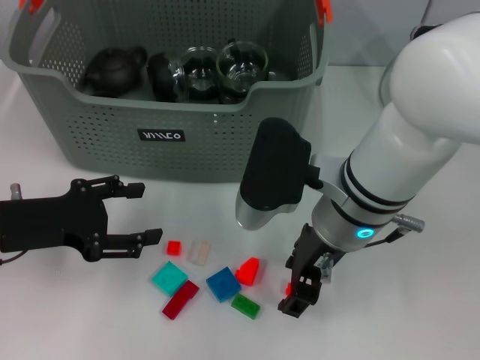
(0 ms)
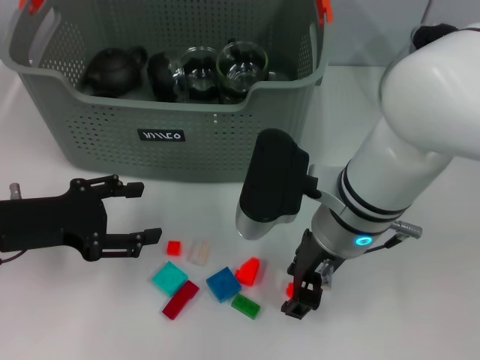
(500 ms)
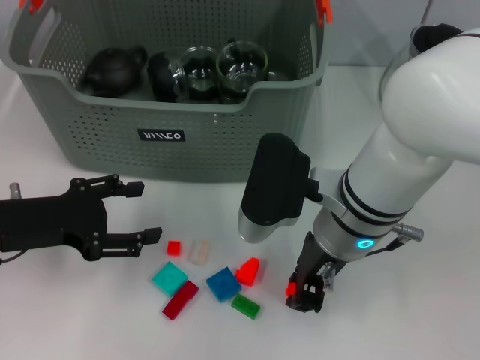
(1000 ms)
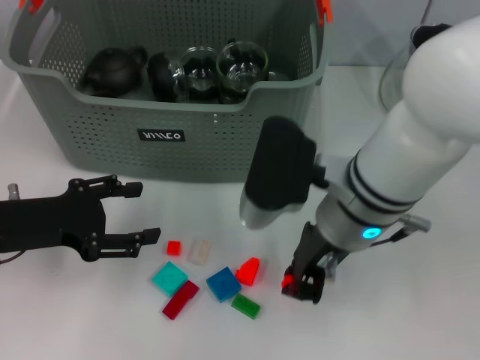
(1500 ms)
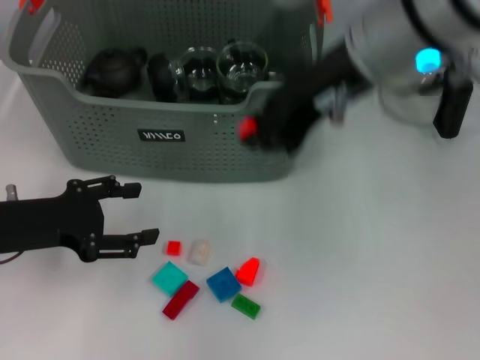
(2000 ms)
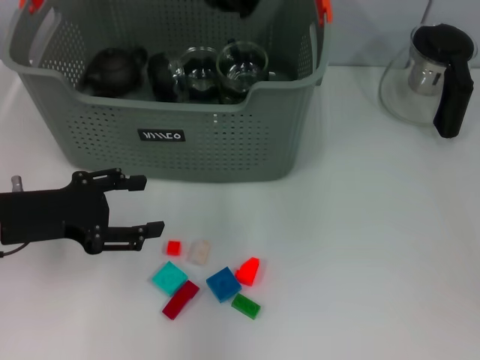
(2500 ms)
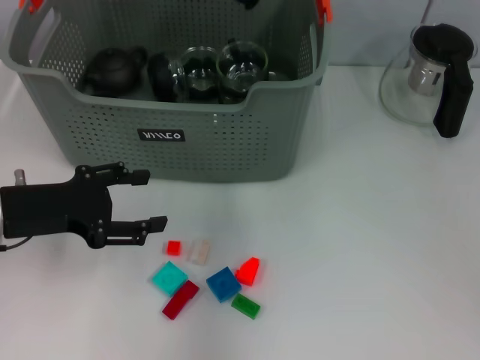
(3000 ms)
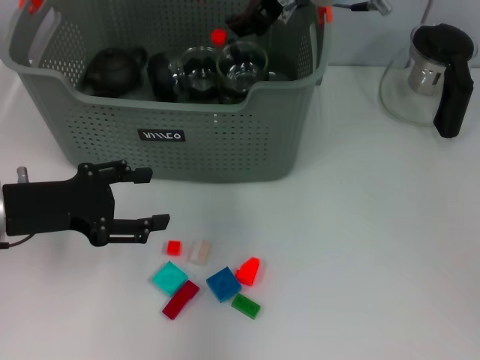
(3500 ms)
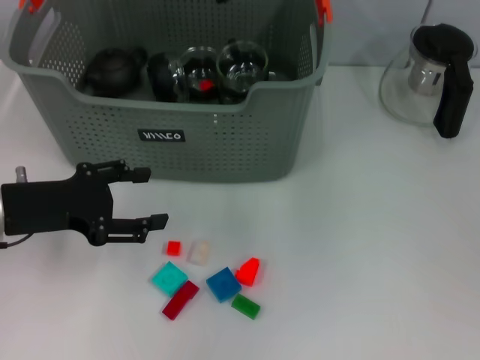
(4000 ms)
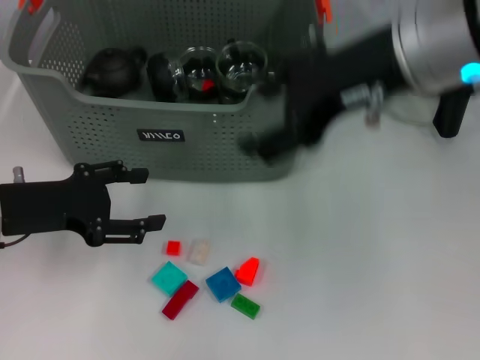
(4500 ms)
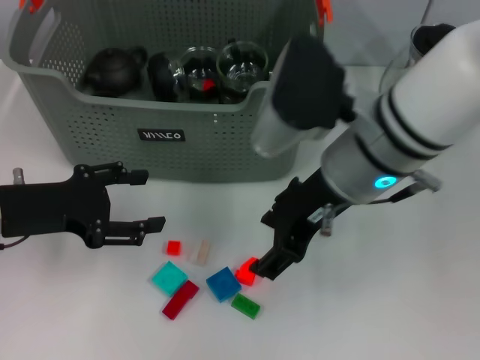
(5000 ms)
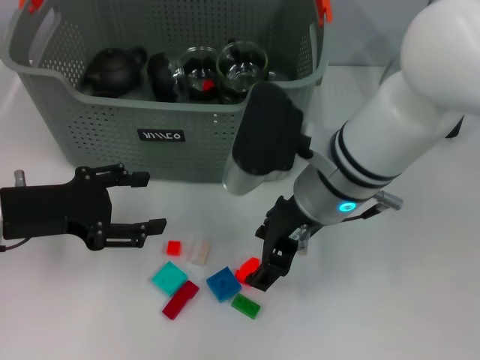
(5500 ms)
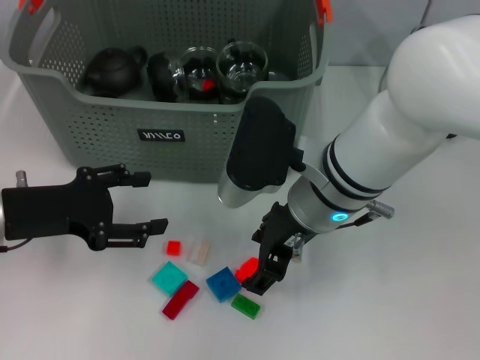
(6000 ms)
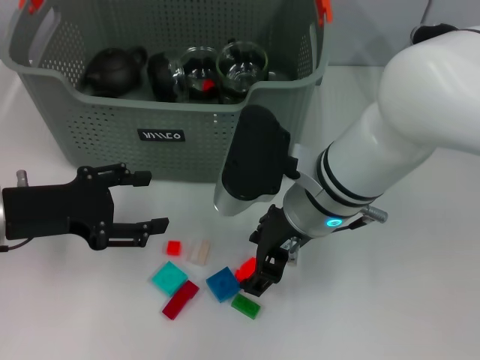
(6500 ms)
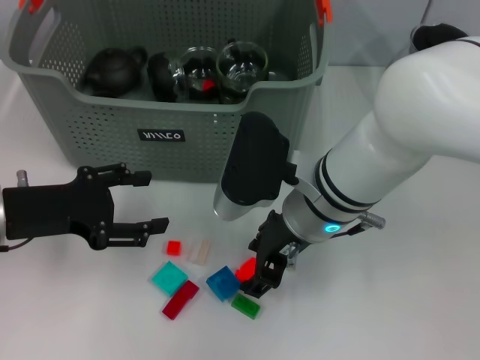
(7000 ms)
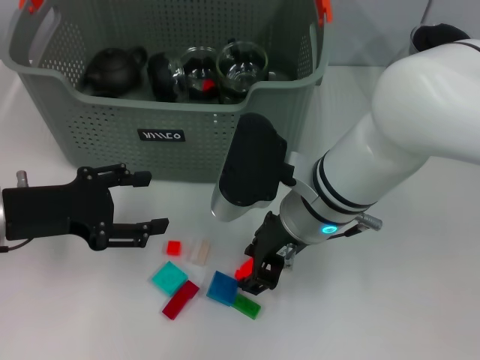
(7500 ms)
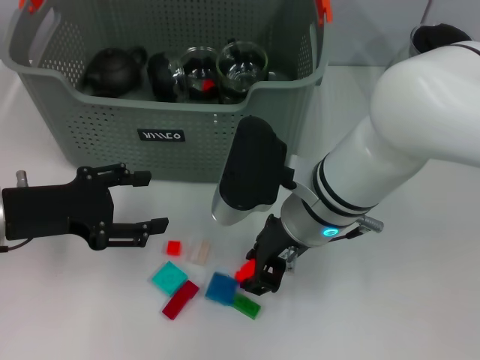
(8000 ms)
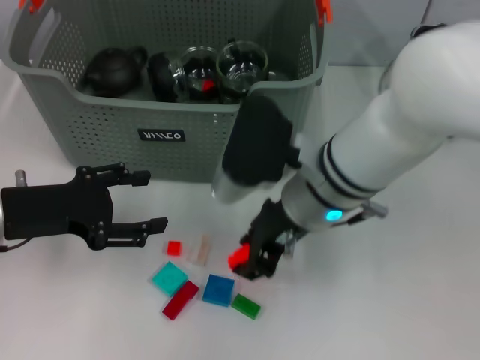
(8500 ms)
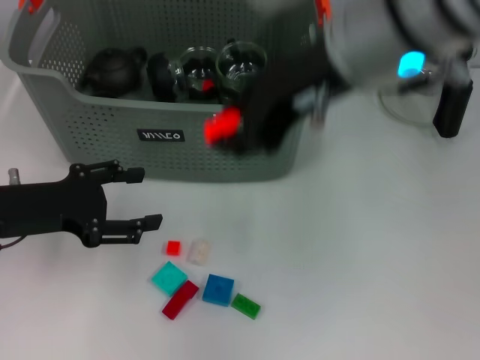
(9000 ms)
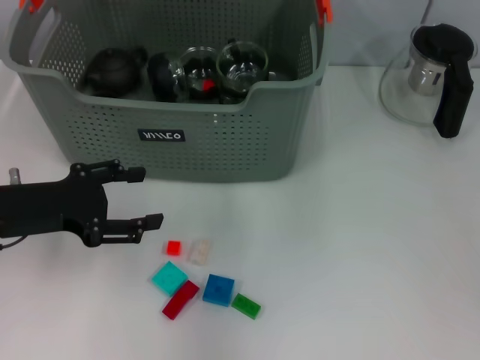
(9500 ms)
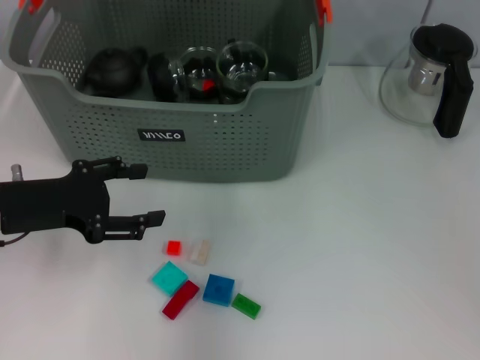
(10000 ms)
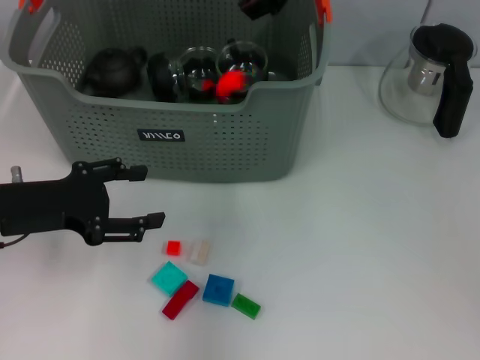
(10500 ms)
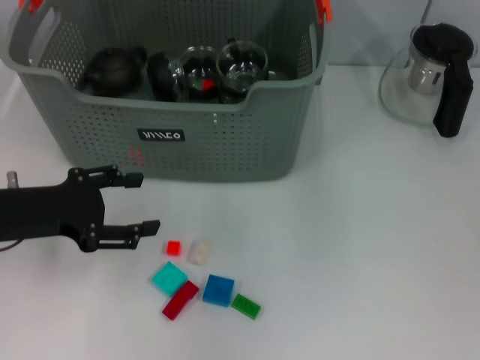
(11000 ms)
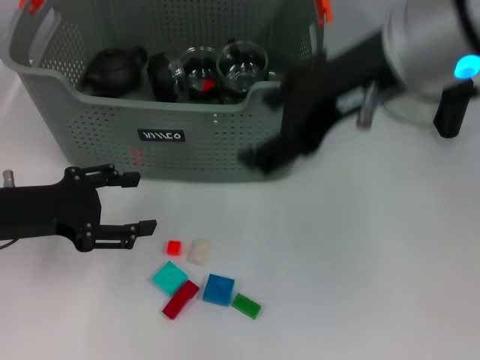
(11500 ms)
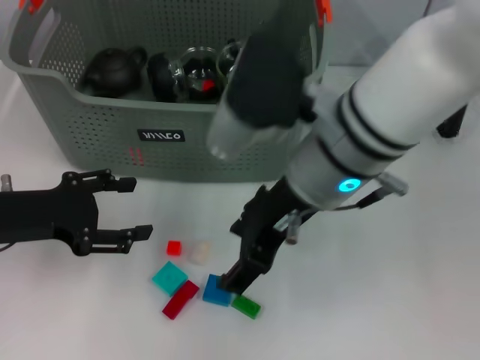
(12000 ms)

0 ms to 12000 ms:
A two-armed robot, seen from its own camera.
Task of the whole recording: pick up the teacup on the table and place it into the storage bin, pick up the block on the table and place it into the storage bin.
Step, 1500 ms to 3000 ms: Place the orange block in the storage box with right gripper.
Step, 4000 ms to 8000 ms: Grasp the orange block with right gripper.
Step, 8500 ms to 10500 ms: Place the orange block in the storage box with right gripper.
0 ms to 2000 ms: The right gripper travels upward by some 15 cm, and closes up.
2000 ms to 4000 ms: The right gripper moves forward, approximately 10 cm, and opens up.
4000 ms to 6000 ms: The right gripper goes approximately 20 cm downward and backward.
6000 ms to 8000 ms: The right gripper closes up.
8000 ms to 10000 ms: The right gripper travels upward and forward by roughly 20 cm.
10000 ms to 12000 ms: The right gripper moves backward and downward, about 15 cm, and opens.

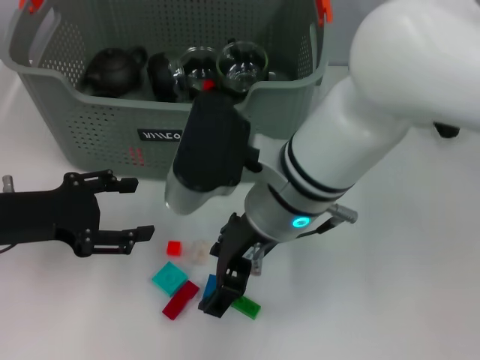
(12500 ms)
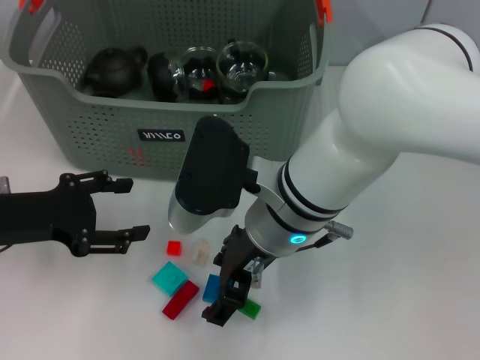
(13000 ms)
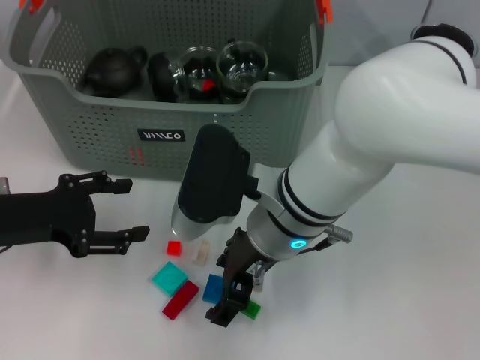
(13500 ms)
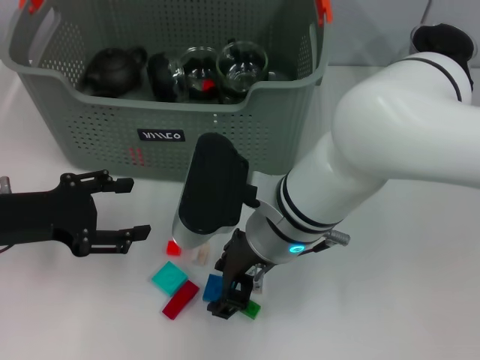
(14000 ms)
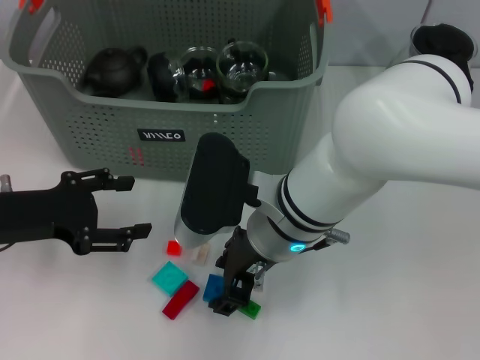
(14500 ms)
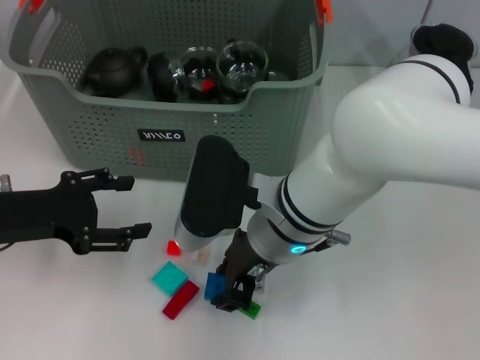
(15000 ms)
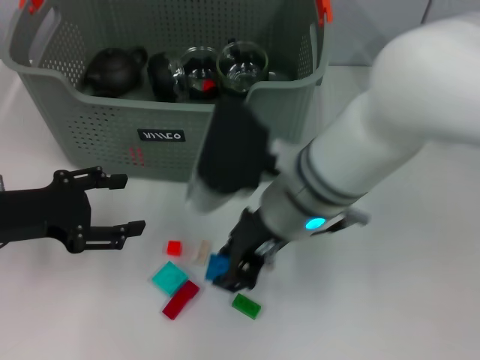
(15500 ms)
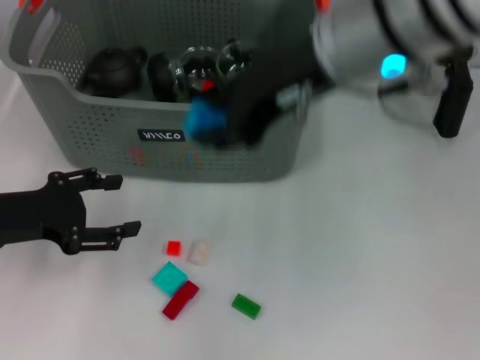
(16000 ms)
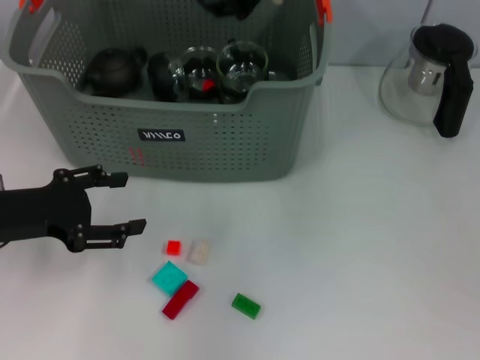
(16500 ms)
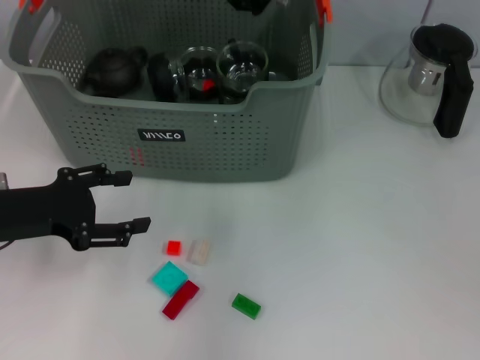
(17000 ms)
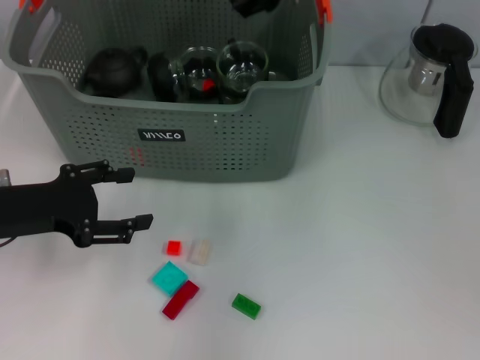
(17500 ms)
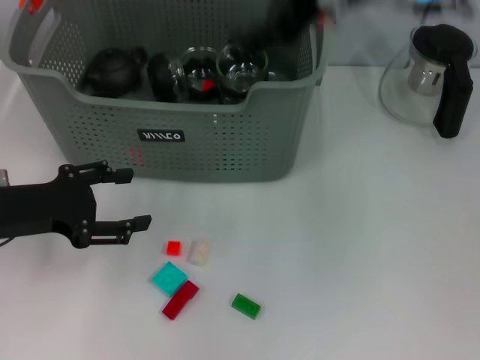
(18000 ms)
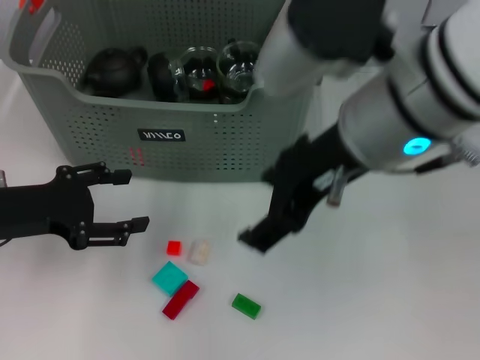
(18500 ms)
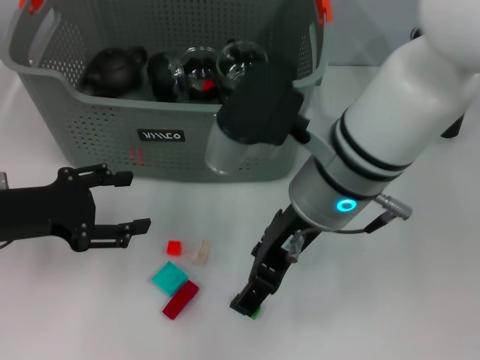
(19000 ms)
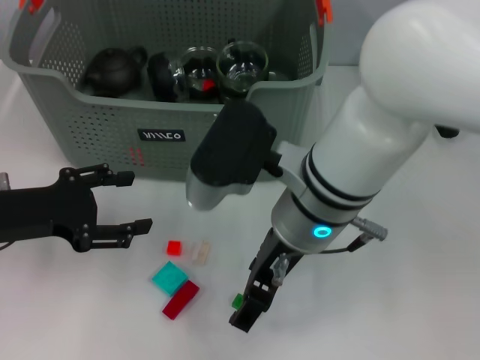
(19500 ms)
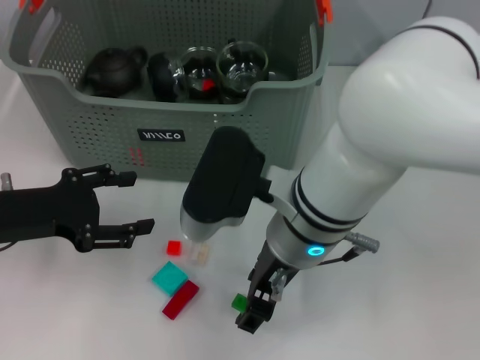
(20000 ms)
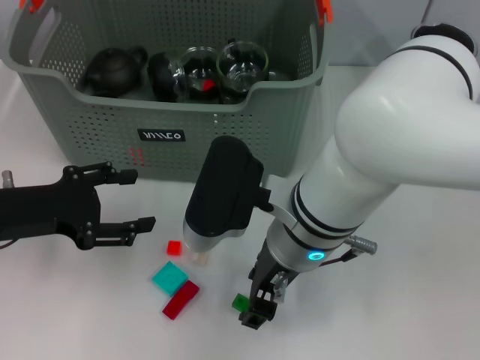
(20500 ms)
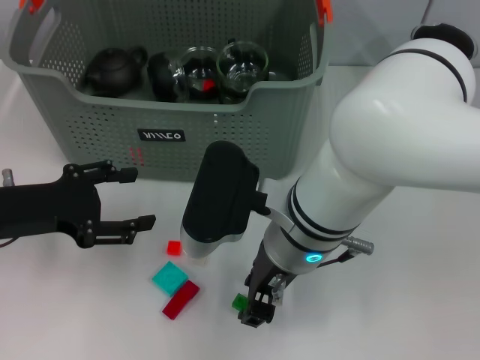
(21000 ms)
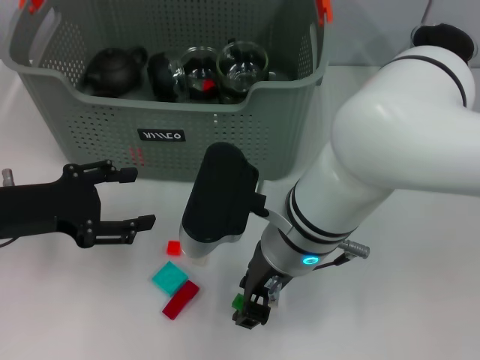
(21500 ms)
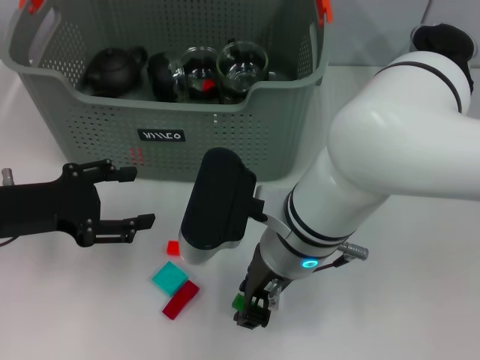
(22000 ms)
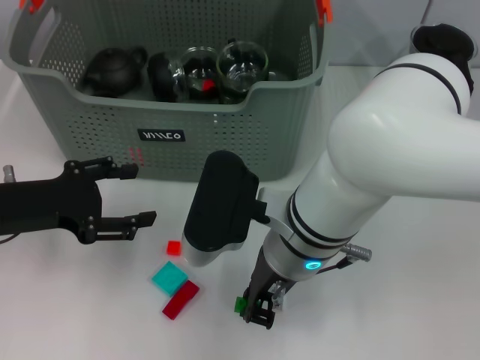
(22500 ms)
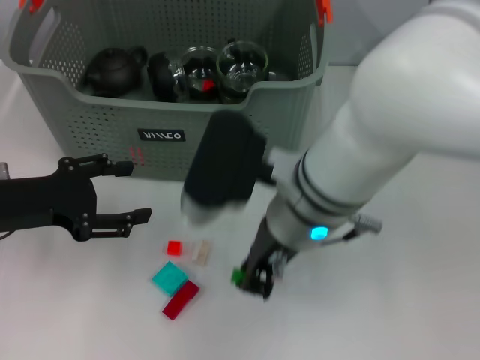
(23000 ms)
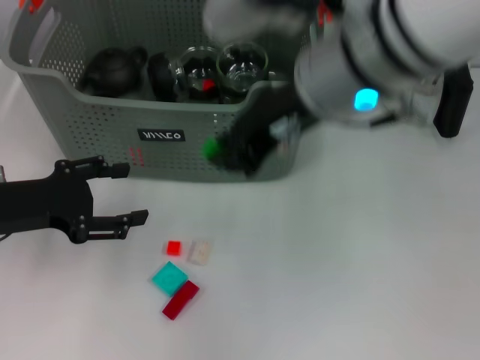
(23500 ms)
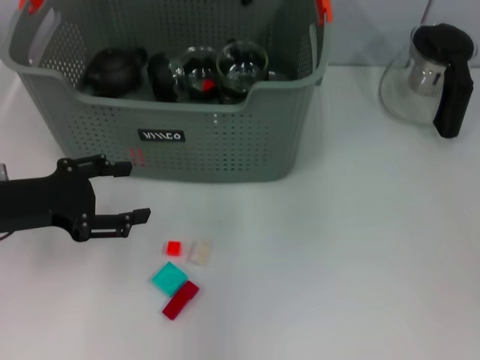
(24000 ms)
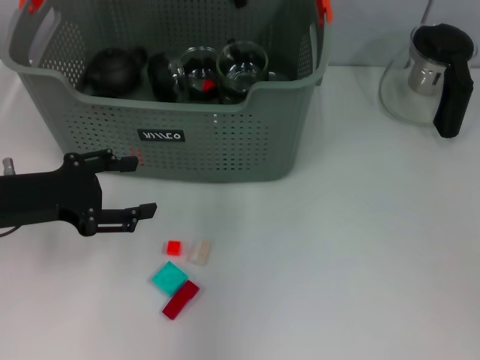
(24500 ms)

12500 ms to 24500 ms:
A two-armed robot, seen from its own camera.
Task of the whole recording: pick up the teacup on the table and place it into the storage bin, pick up the block on the table and place it into the storage bin.
Step, 12500 ms to 14500 ms: Grasp the dark blue block with right gripper.
Step, 15000 ms to 17000 ms: Place the dark blue block in the storage box with right gripper.
Step, 17500 ms to 22500 ms: Grasp the green block with right gripper.
14500 ms to 16500 ms: The right gripper heads upward and forward, covering some 20 cm.
16500 ms to 18500 ms: The right gripper moves backward, roughly 10 cm, and opens its fingers.
18500 ms to 20500 ms: The right gripper moves downward and to the left, roughly 15 cm.
20500 ms to 22500 ms: The right gripper closes its fingers.
22500 ms to 24500 ms: The right gripper travels upward and forward by approximately 20 cm.

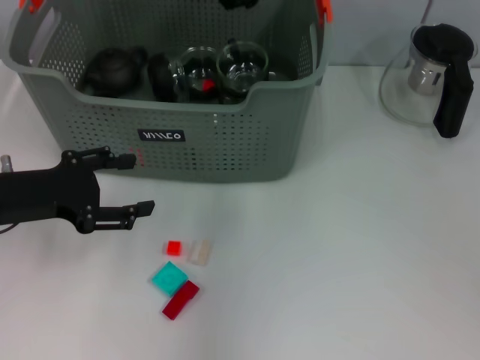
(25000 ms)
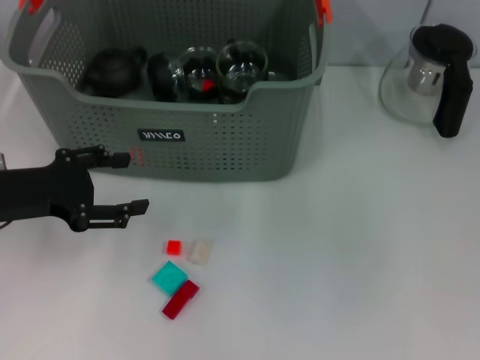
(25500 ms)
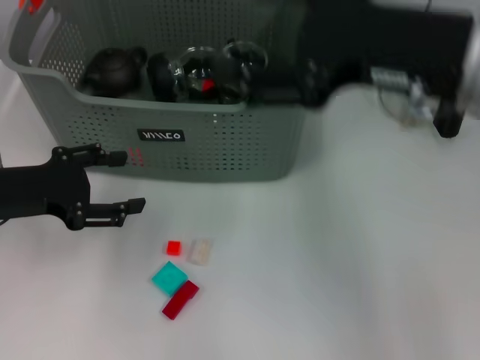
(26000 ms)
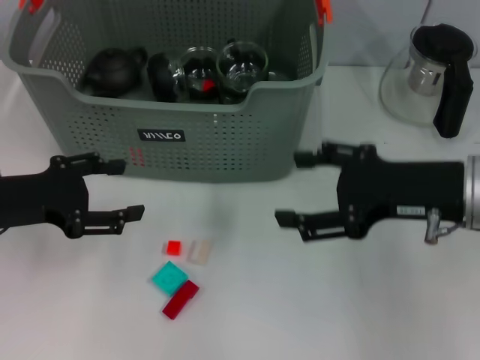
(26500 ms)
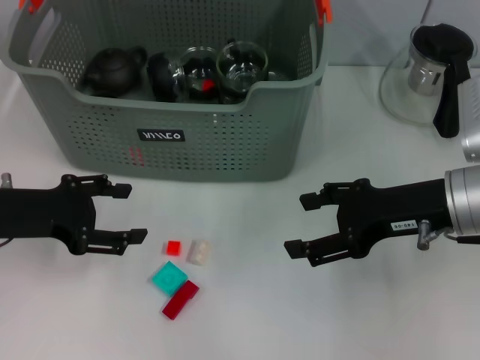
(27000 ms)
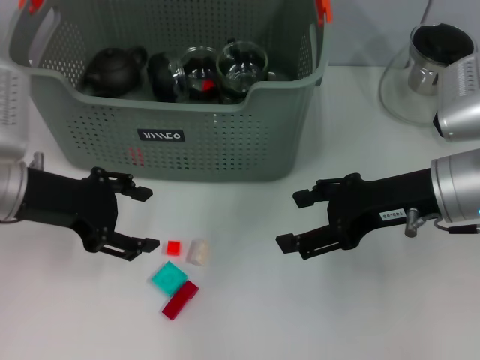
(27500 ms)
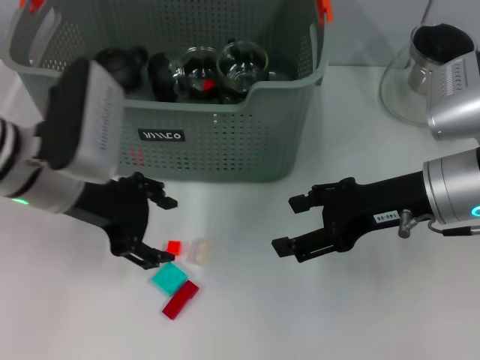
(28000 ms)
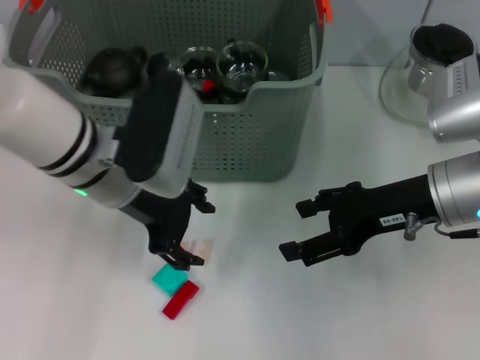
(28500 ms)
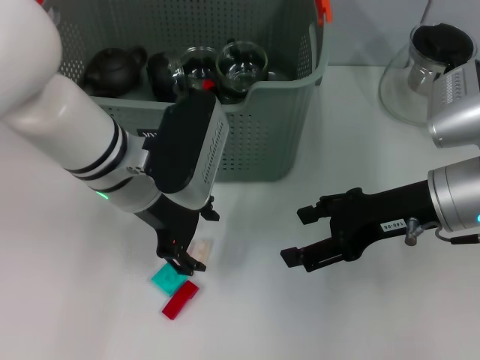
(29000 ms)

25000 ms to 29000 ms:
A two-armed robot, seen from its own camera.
Task of the whole recording: pick up the teacup on the table and place it into the storage bin, pick up the block on the table and place it into the storage bin.
25000 ms to 27000 ms: The right gripper shifts some 25 cm downward, to the right and backward, and opens.
27000 ms to 29000 ms: The left gripper shifts approximately 15 cm to the right.
